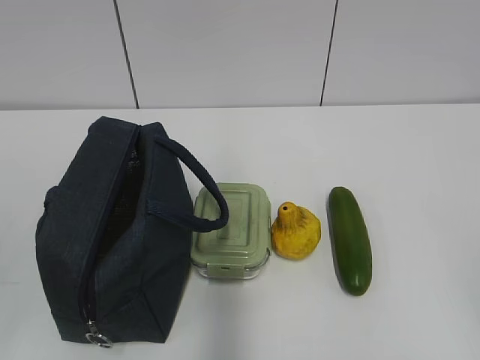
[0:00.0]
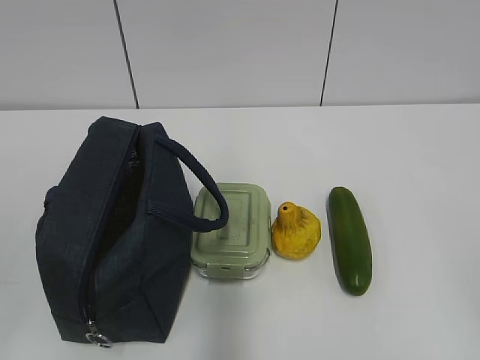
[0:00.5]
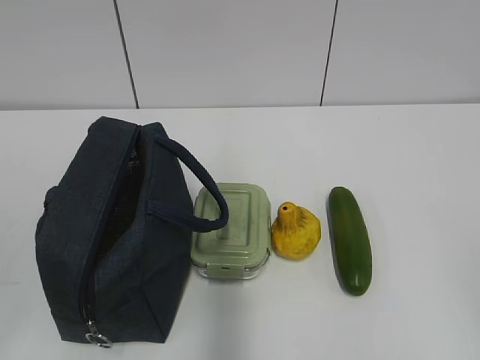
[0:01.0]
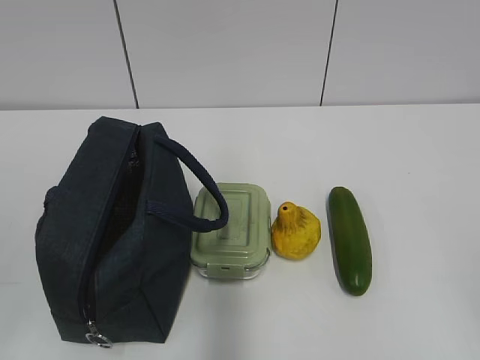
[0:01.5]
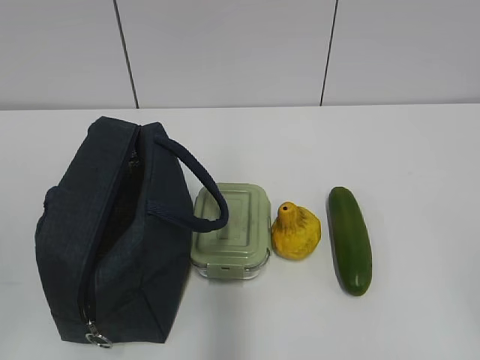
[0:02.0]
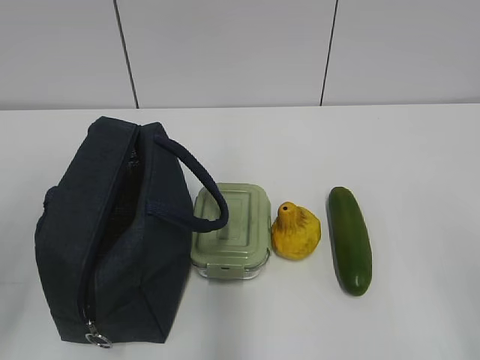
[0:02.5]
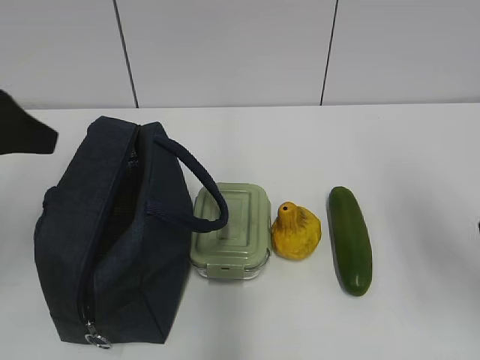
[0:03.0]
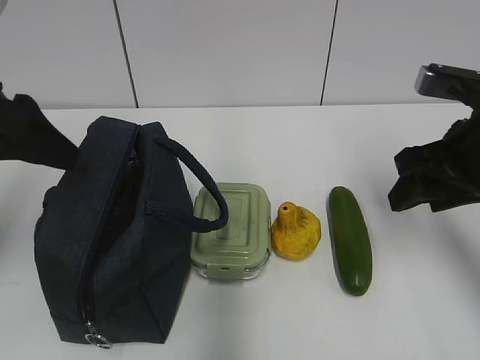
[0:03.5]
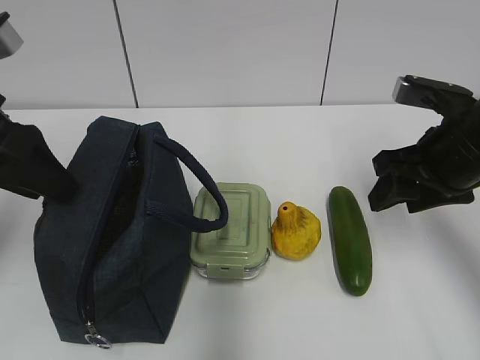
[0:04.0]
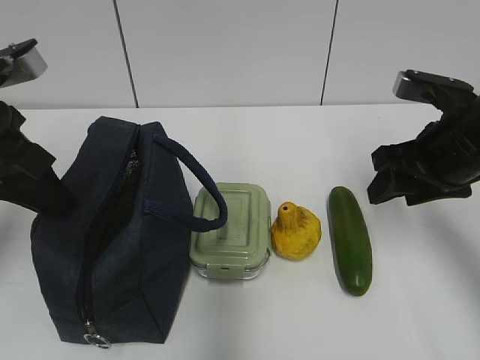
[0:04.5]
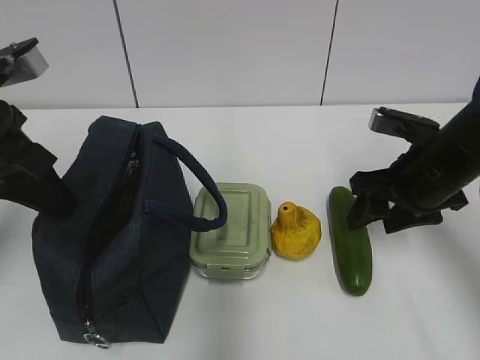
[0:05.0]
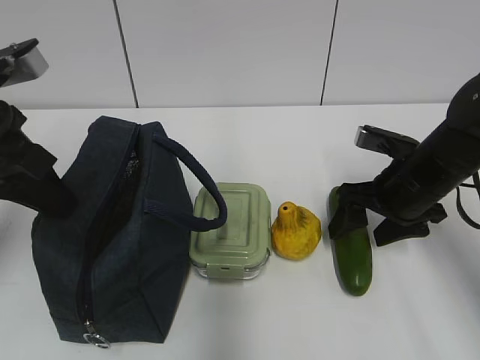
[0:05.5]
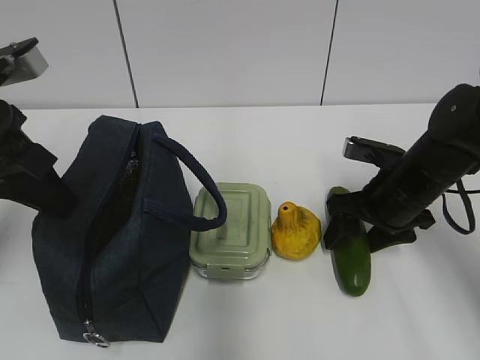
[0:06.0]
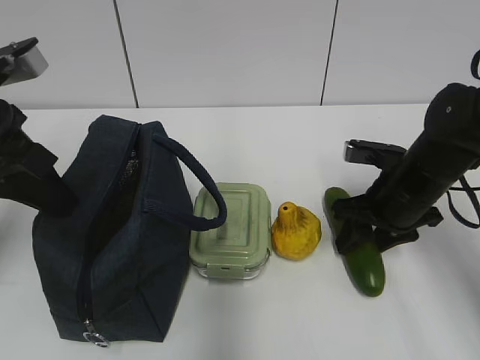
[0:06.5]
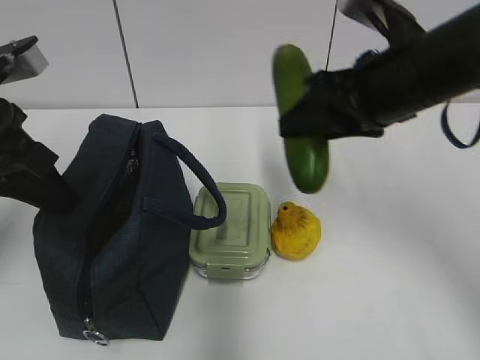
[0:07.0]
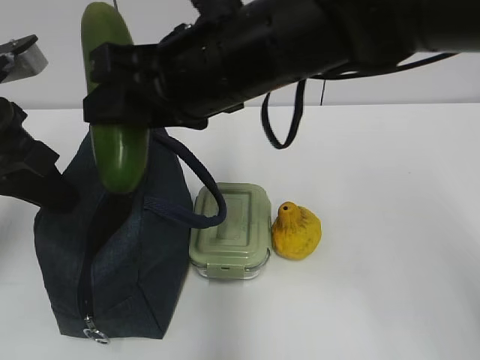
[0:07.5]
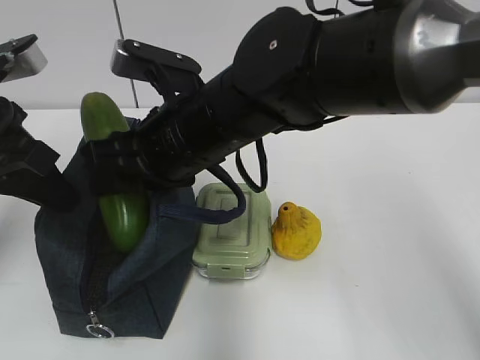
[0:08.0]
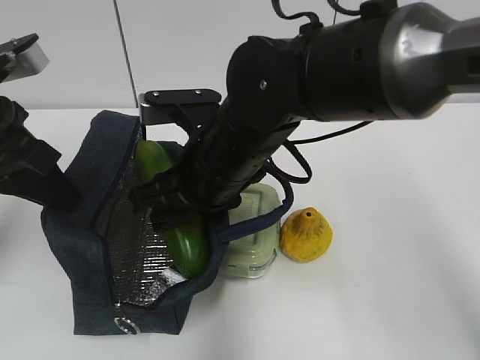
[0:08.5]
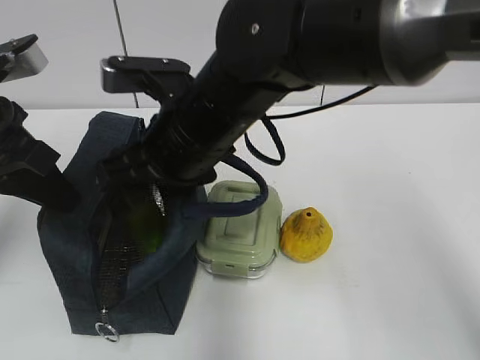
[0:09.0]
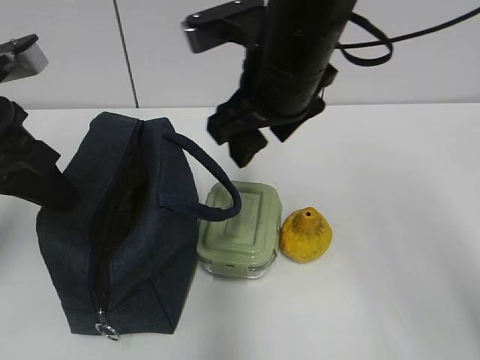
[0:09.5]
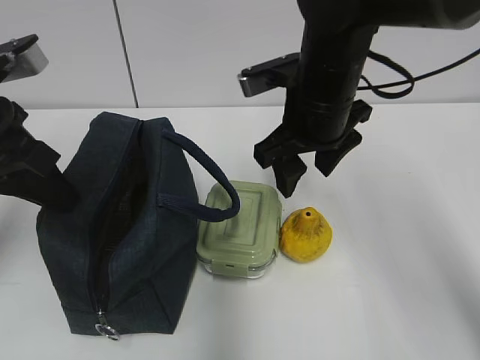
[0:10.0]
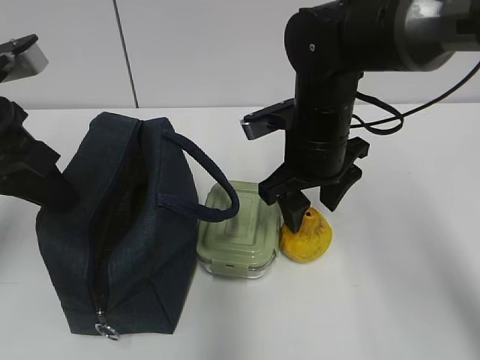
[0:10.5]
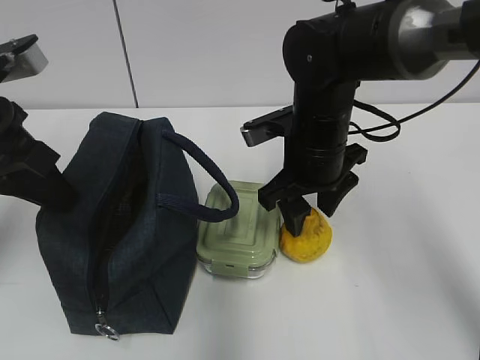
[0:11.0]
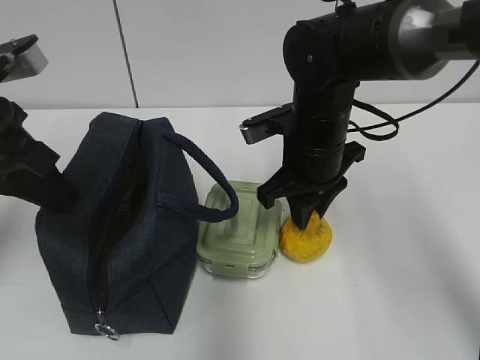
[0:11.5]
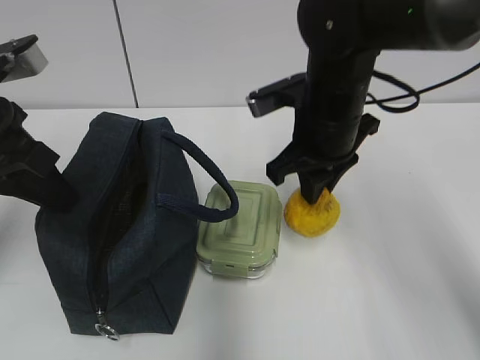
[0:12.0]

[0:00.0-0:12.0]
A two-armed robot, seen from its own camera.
Step, 0:00.0 to 0:06.0: Grab the cucumber with your right hand.
Step, 0:08.0 to 0:09.0: Place it into the bag with your right hand.
Step, 0:09.5 to 0:11.5: Grab the pear with your right hand.
0:02.0 to 0:04.0: Both grippers move forward, about 30 cm.
0:04.0 to 0:06.0: The left gripper closes up; the right gripper goes some 10 cm downward.
0:06.0 to 0:08.0: The right gripper shifts about 25 cm to the left and upward.
0:08.0 to 0:10.0: The right gripper moves to the right and forward, roughly 15 cm.
0:10.0 to 0:12.0: The right gripper closes its fingers.

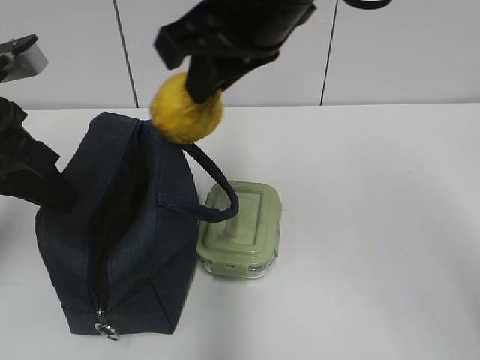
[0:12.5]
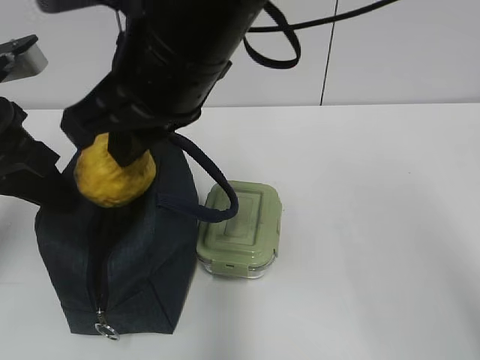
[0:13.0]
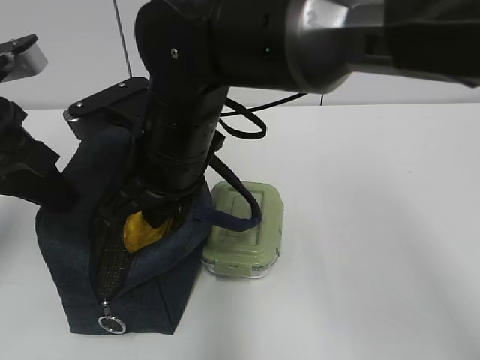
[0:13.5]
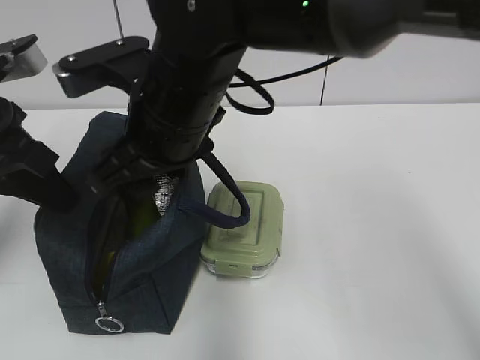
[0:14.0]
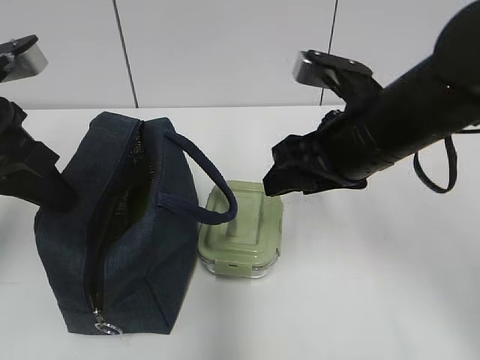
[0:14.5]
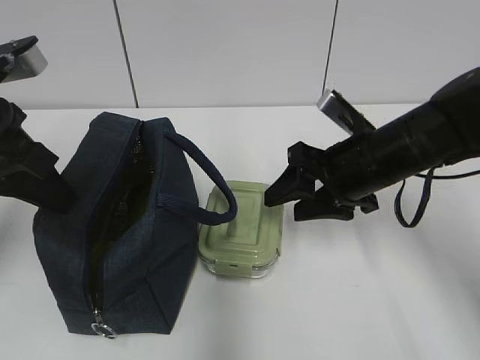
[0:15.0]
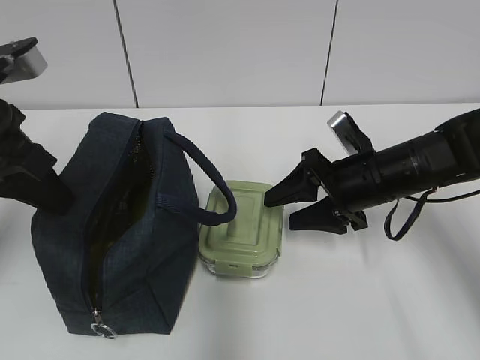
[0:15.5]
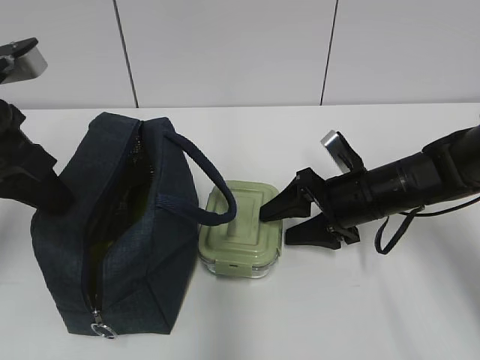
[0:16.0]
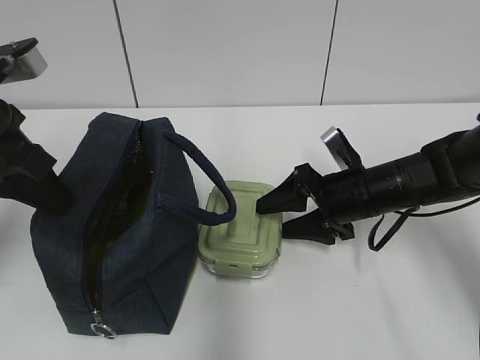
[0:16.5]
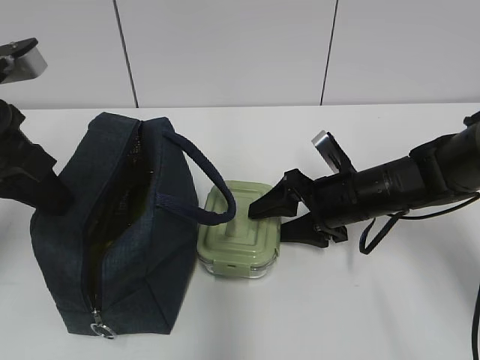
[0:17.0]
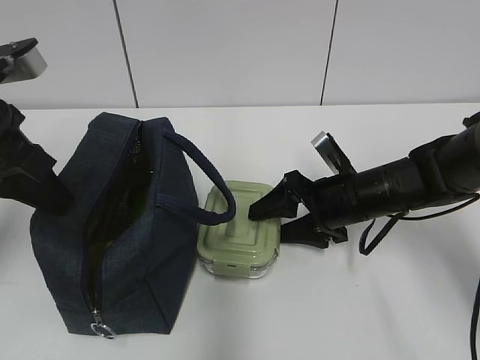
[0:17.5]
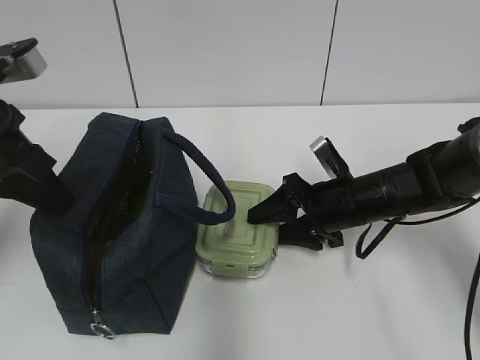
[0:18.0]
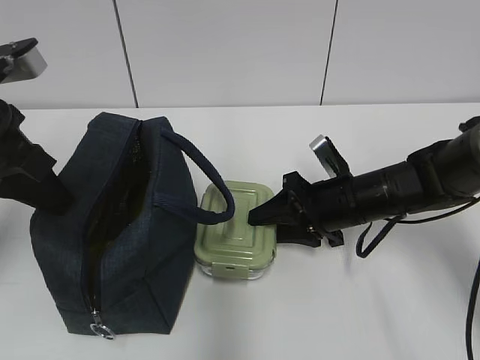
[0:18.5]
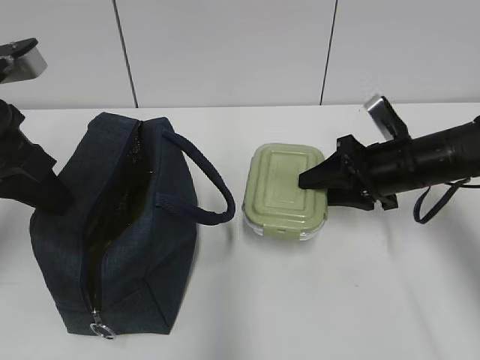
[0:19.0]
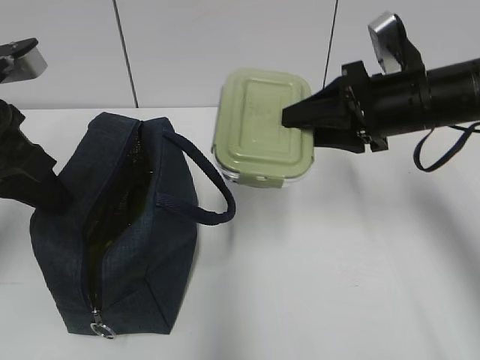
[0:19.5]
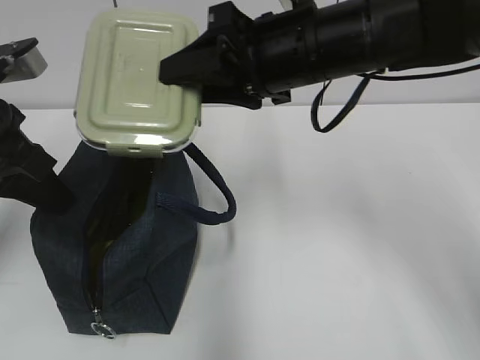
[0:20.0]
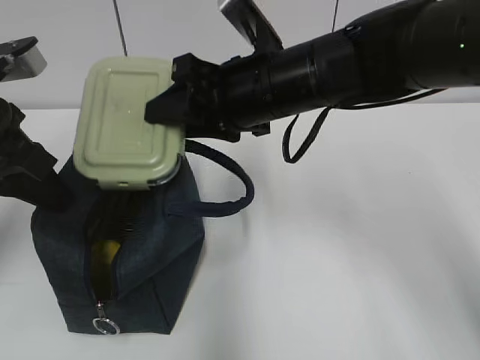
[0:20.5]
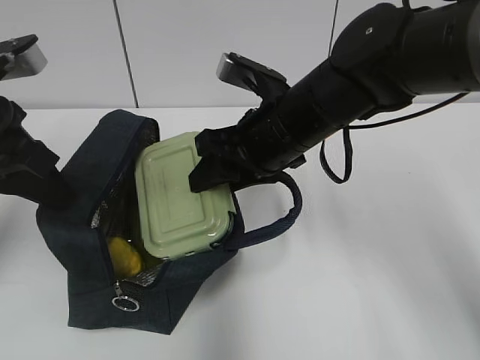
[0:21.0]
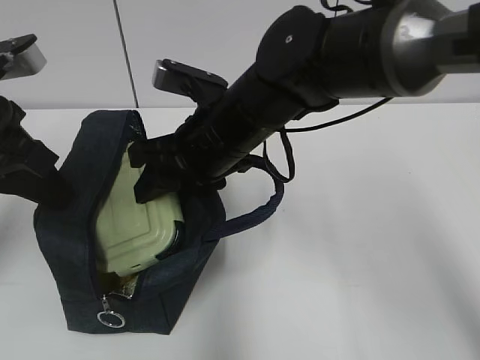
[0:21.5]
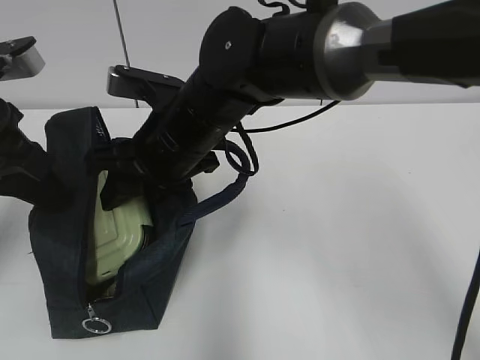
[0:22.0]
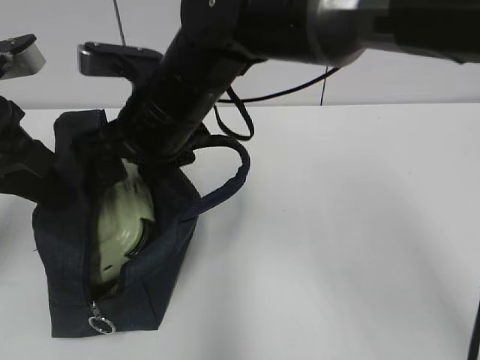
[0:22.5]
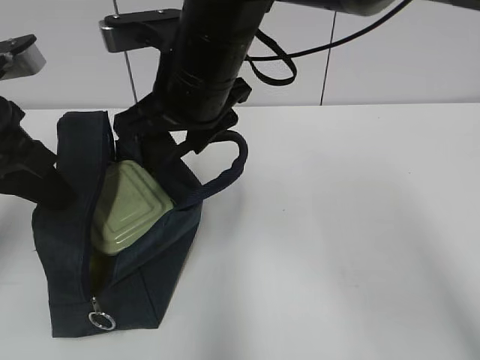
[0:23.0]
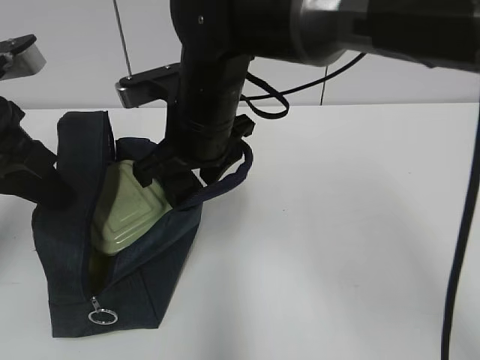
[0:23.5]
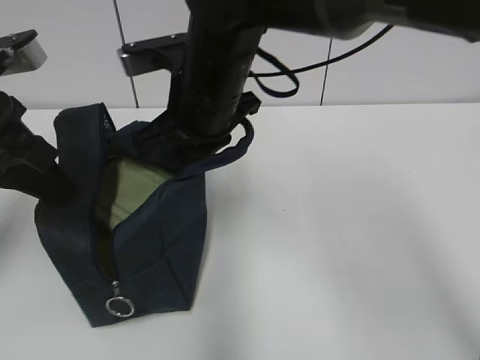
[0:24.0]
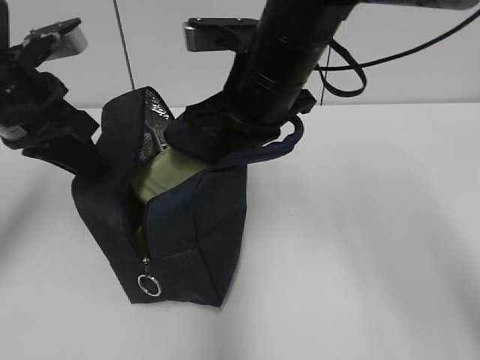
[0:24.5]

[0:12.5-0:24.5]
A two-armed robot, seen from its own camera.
Step, 0:14.5 to 0:18.0: Grab the lunch box with your right hand.
Step, 0:23.0 to 0:23.5: Grab the lunch bag with your right hand.
0:12.5 to 0:14.5: The right gripper goes roughly 15 cm downward and to the right, and opens its fingers.
0:14.5 to 0:16.5: The right gripper heads downward and forward, covering roughly 15 cm.
0:16.5 to 0:18.5: The right gripper closes.
0:18.5 to 0:20.5: The right gripper goes about 20 cm upward and to the left.
0:20.5 to 0:22.5: The right gripper goes roughly 10 cm to the left, and opens.
0:22.5 to 0:24.5: The left gripper ends up about 5 cm from where it was; the right gripper goes approximately 10 cm to the right, and closes.

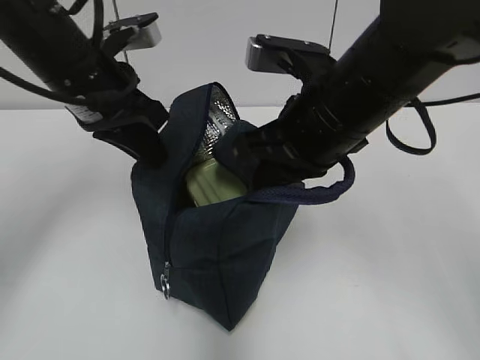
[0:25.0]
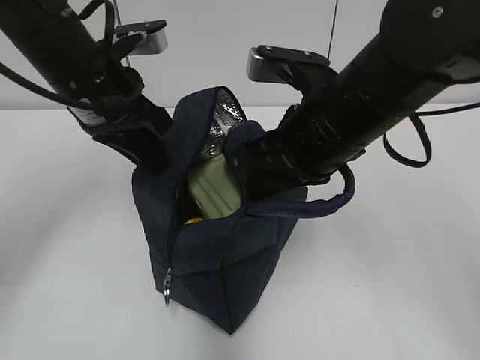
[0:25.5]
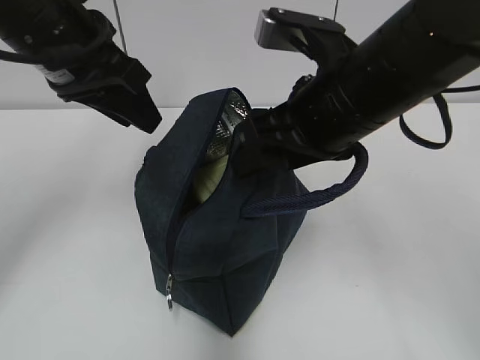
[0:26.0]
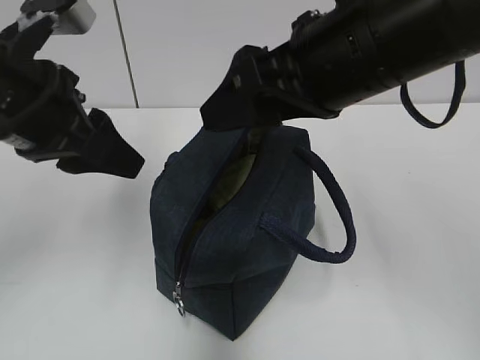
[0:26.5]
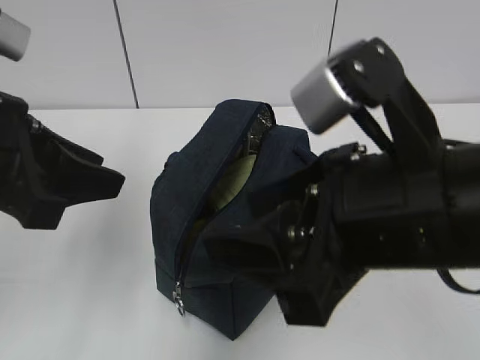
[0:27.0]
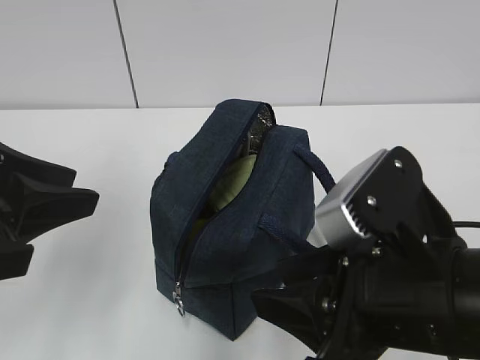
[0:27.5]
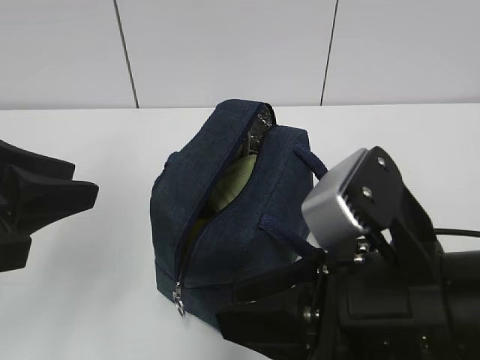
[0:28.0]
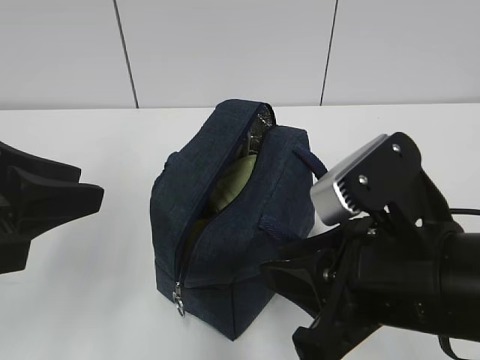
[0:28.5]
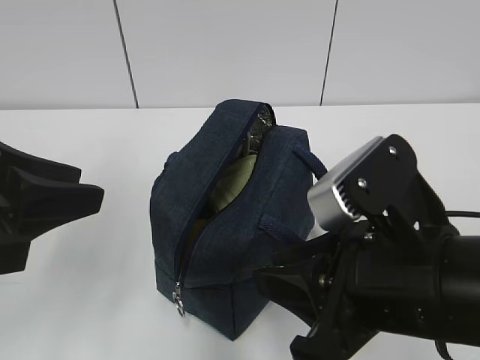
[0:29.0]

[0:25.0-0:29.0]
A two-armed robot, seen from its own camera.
0:25.0 to 0:27.0: The two grippers go about 15 cm backward. The right gripper opens its fingers; the left gripper opens its fingers.
0:27.0 to 0:29.0: The right gripper is displaced downward by about 5 cm, and closes.
